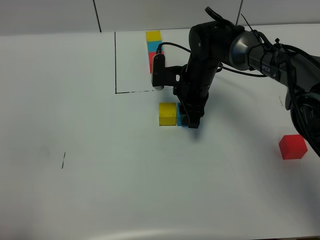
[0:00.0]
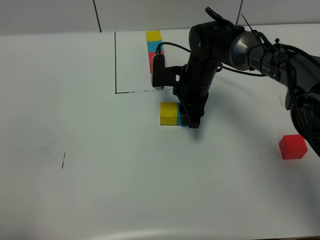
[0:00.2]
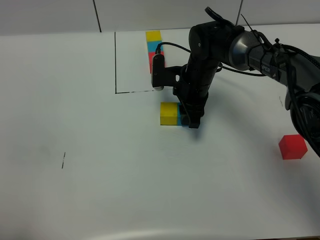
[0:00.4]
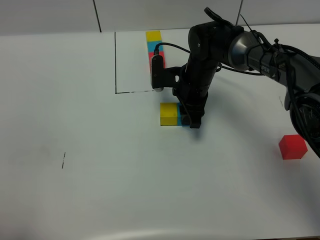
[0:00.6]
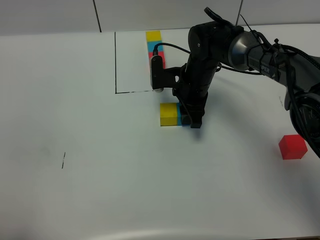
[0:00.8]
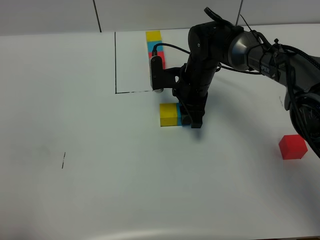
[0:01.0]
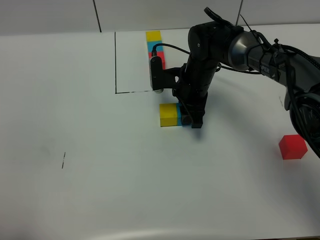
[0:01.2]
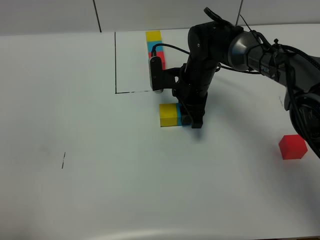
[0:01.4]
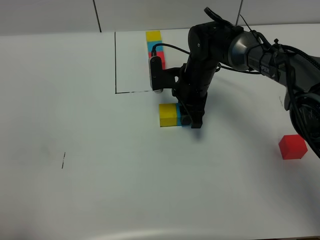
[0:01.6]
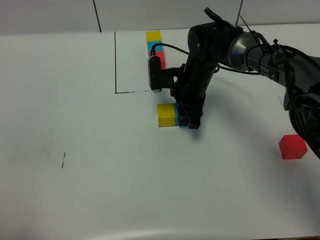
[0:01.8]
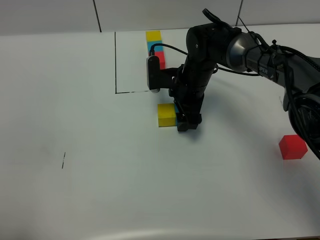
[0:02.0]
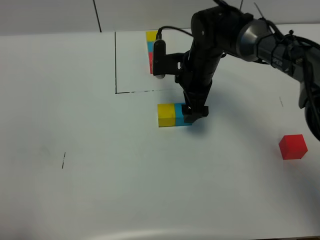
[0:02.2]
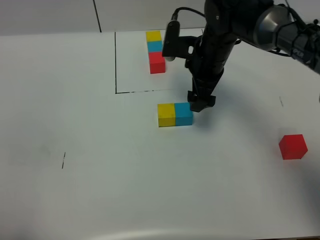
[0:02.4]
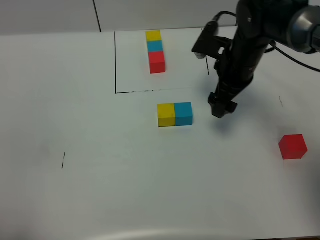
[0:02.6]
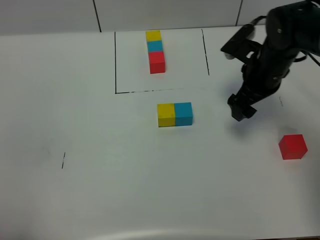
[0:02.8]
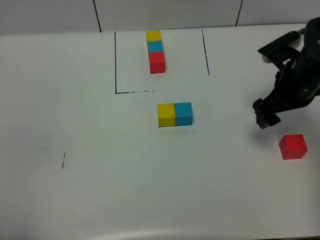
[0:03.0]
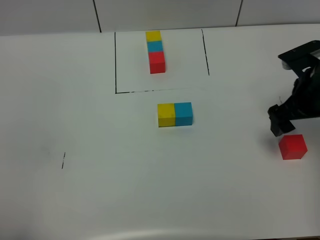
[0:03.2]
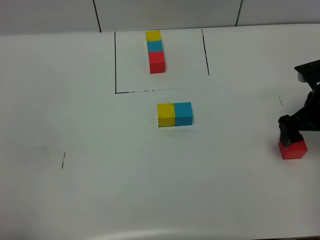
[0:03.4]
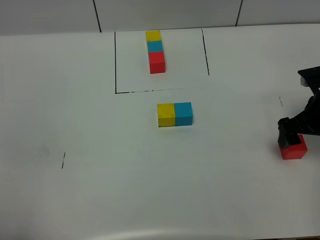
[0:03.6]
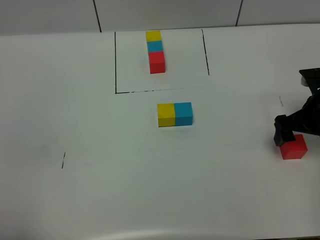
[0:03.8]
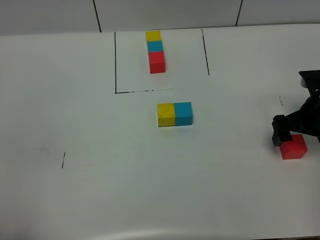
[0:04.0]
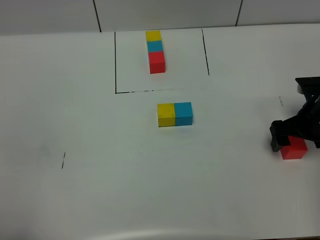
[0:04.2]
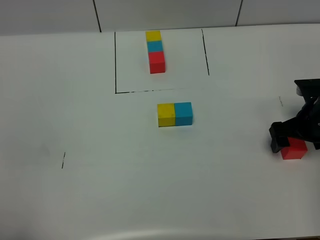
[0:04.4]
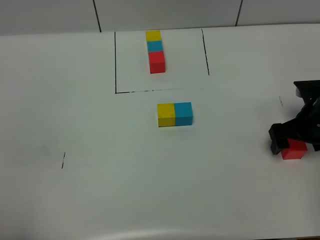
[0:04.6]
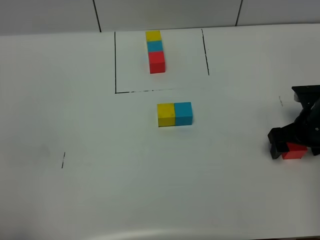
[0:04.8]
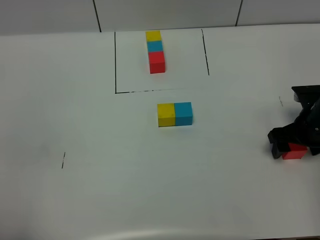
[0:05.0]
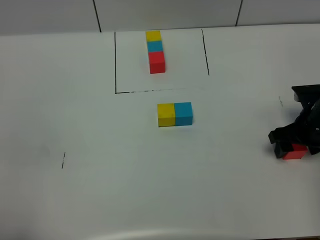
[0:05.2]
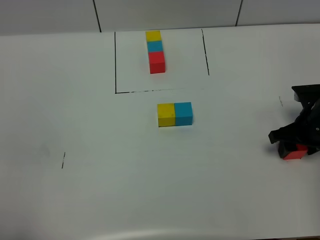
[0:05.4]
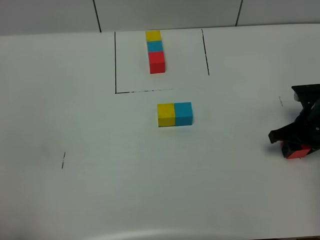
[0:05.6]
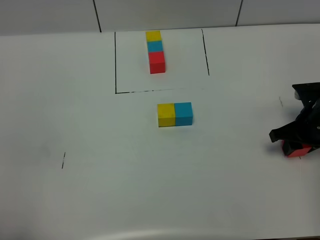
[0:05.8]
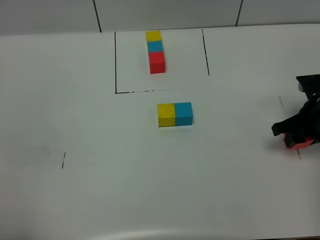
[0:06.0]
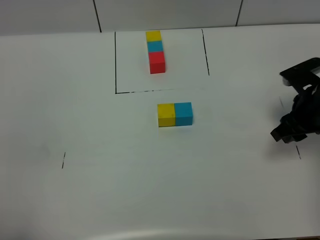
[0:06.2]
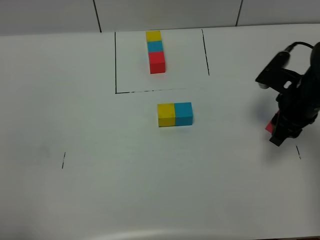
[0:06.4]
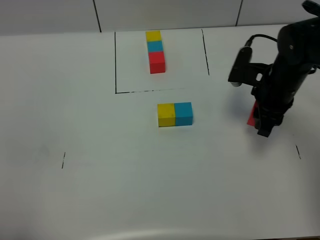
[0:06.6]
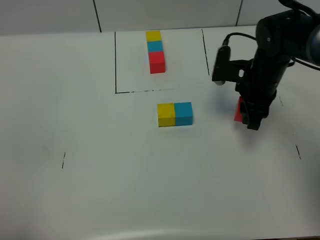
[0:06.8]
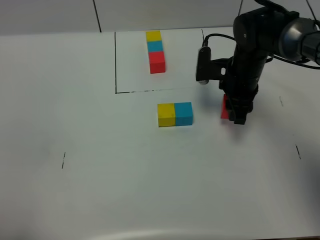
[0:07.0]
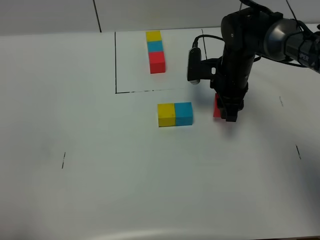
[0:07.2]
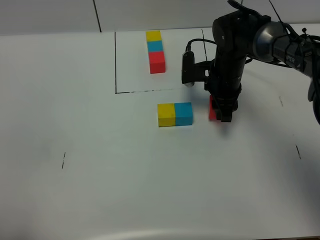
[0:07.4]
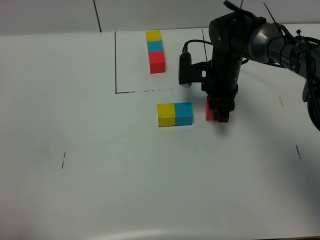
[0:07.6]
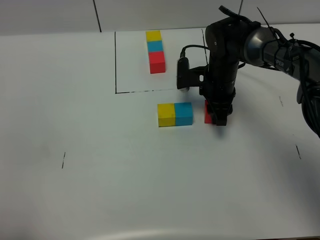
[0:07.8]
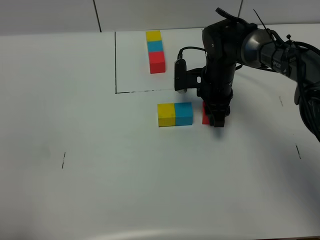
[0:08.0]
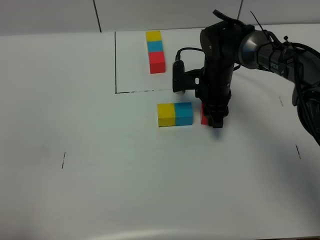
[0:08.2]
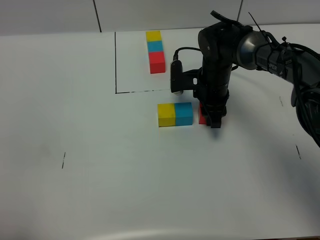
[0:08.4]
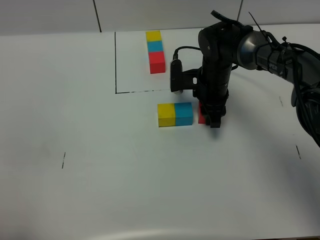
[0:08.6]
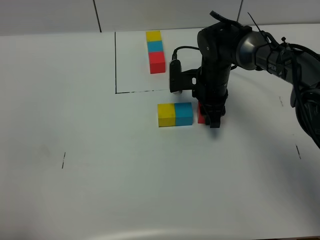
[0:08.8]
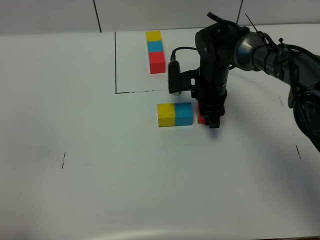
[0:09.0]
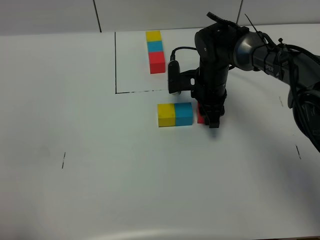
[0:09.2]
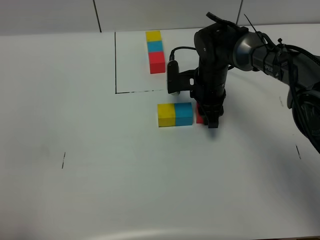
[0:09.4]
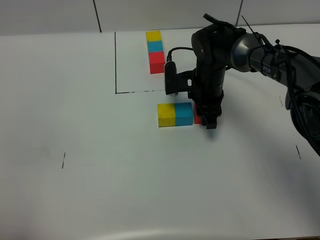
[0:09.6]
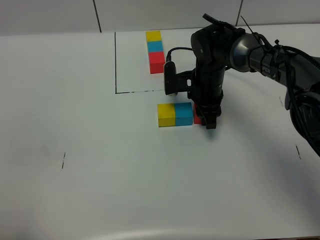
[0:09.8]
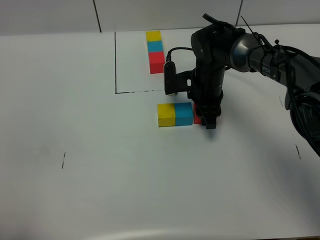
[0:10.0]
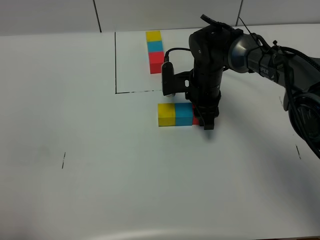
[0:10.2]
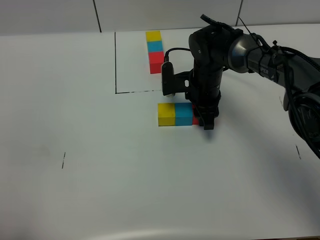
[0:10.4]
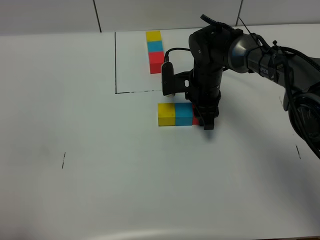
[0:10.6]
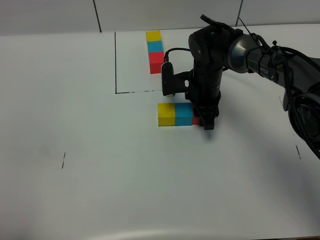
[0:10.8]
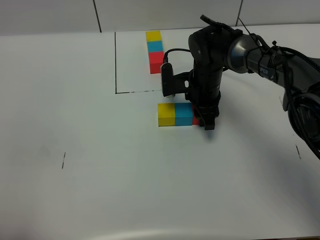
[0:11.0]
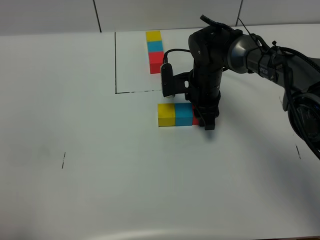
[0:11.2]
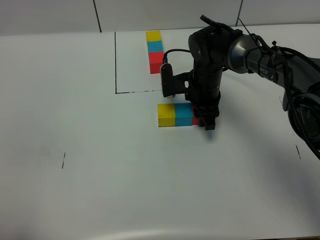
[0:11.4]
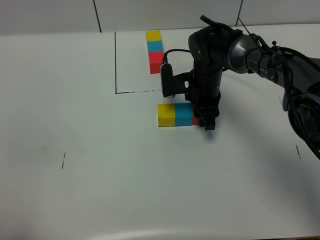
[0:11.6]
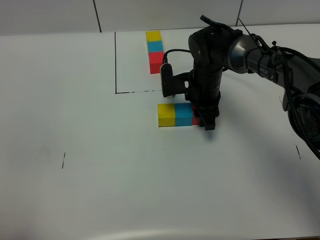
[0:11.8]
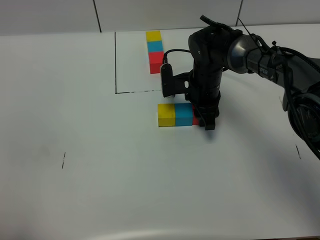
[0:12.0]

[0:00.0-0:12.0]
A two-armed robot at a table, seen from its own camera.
Task of the whole recording: According to the building block template in front, assemble the scattered blocks together.
0:00.0 to 0:01.6: The grippers stay close to where they were, moving slightly.
0:01.6 to 0:03.0: The right gripper heads to the right, backward and upward, covering some 20 cm, and opens.
0:03.0 to 0:04.4: The right gripper travels downward by some 5 cm.
0:04.4 to 0:06.0: The right gripper closes up.
0:06.0 to 0:07.6: The right gripper heads to the left and forward, covering roughly 20 cm.
0:07.6 to 0:09.0: The grippers make only small movements.
0:09.0 to 0:12.0: The two grippers keep their place.

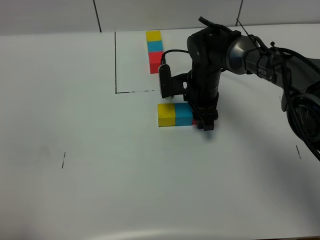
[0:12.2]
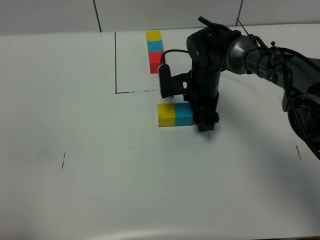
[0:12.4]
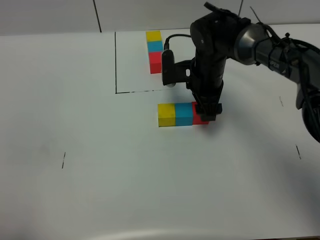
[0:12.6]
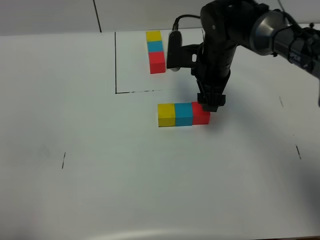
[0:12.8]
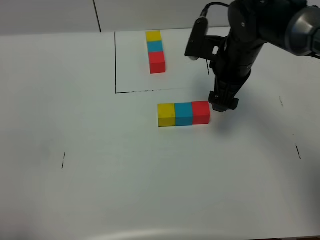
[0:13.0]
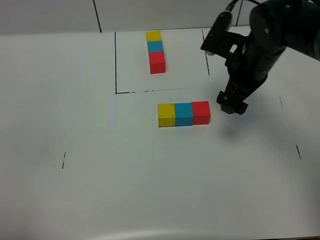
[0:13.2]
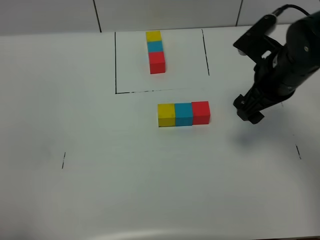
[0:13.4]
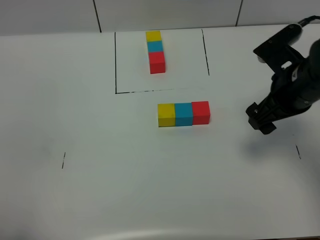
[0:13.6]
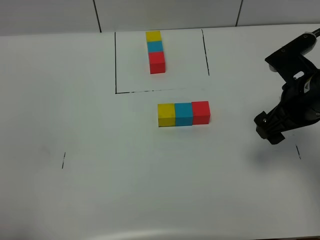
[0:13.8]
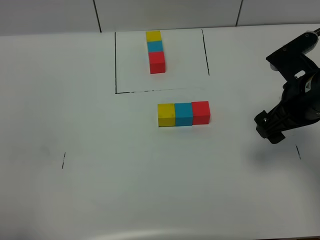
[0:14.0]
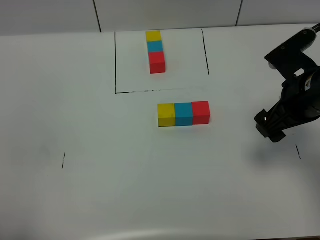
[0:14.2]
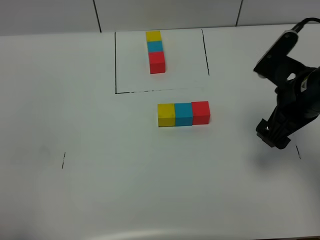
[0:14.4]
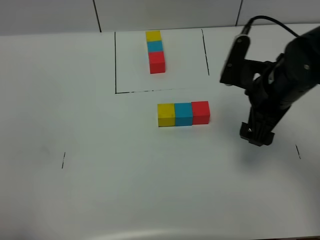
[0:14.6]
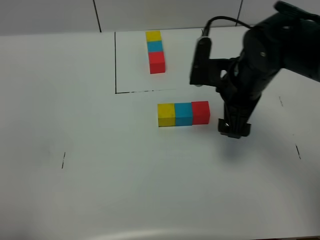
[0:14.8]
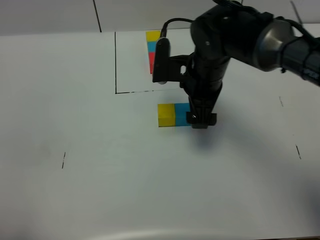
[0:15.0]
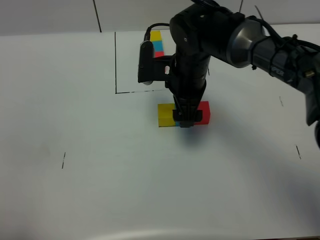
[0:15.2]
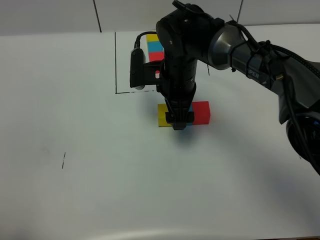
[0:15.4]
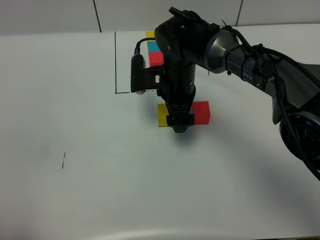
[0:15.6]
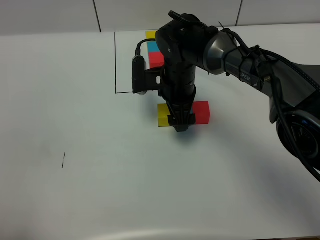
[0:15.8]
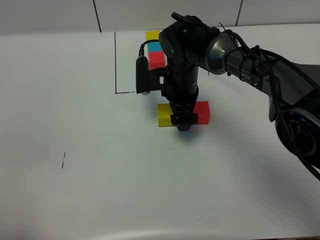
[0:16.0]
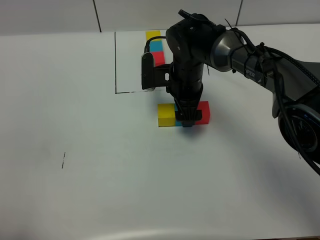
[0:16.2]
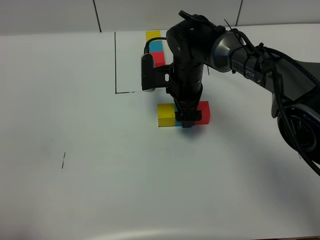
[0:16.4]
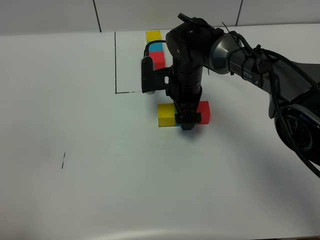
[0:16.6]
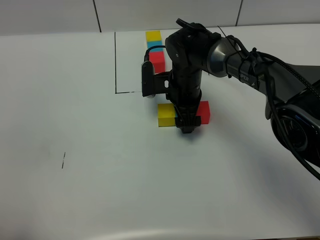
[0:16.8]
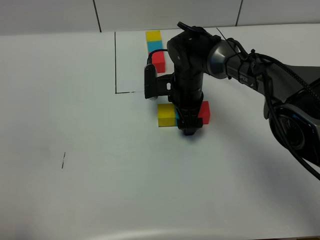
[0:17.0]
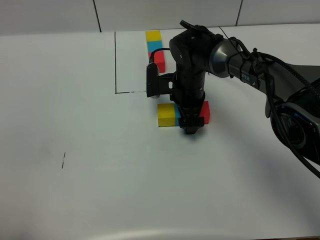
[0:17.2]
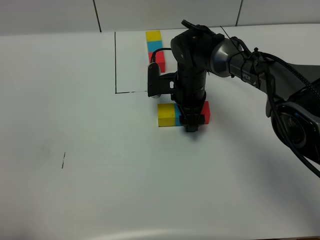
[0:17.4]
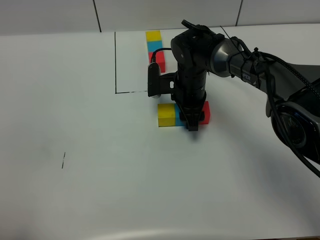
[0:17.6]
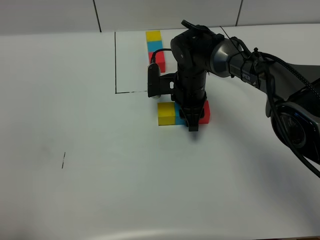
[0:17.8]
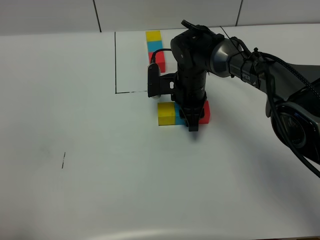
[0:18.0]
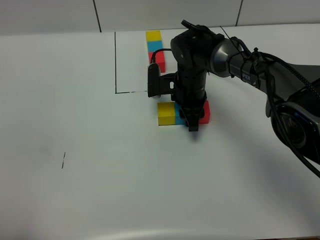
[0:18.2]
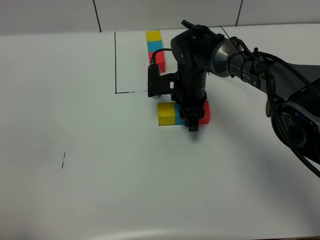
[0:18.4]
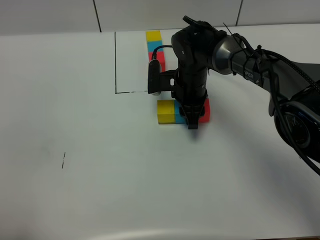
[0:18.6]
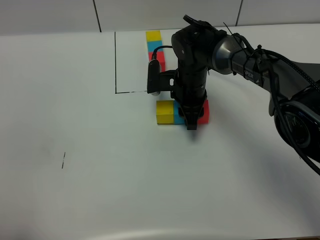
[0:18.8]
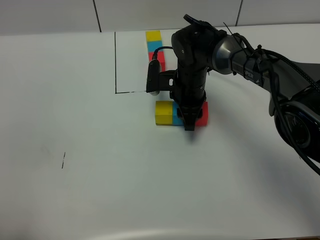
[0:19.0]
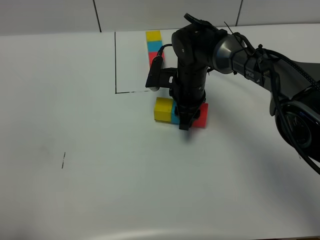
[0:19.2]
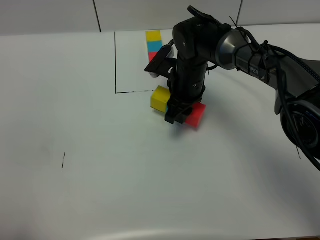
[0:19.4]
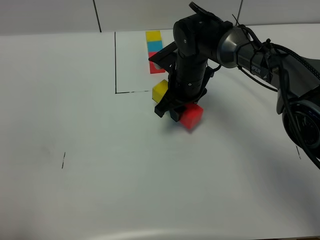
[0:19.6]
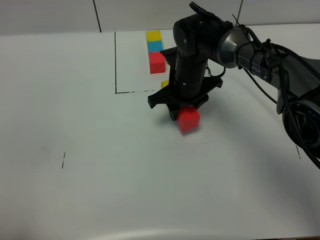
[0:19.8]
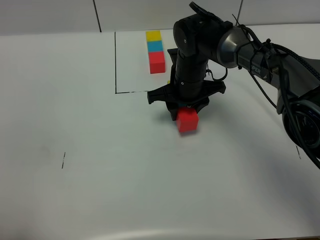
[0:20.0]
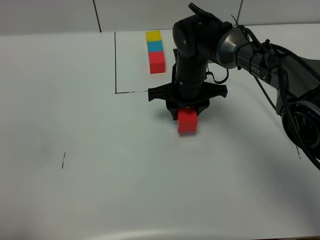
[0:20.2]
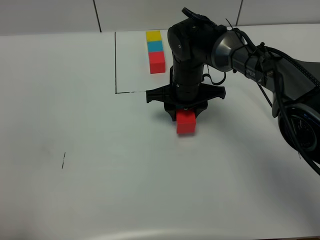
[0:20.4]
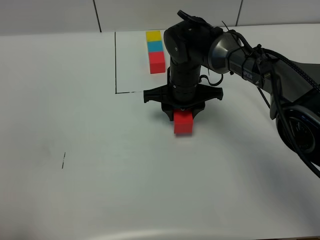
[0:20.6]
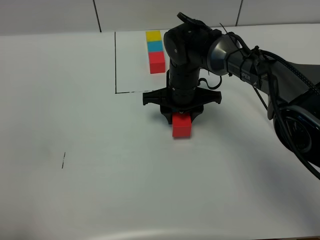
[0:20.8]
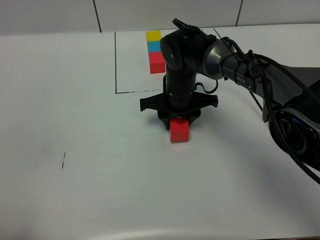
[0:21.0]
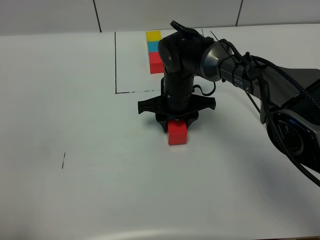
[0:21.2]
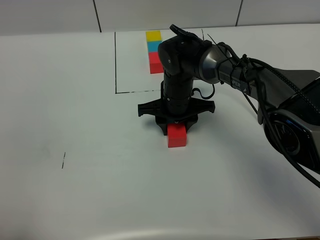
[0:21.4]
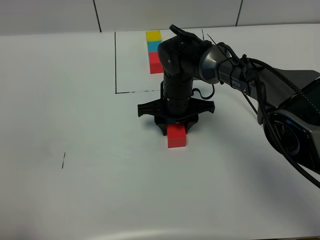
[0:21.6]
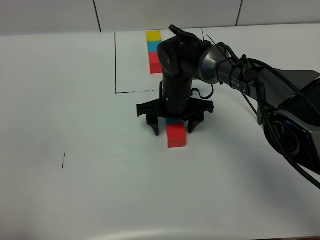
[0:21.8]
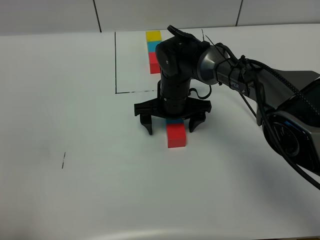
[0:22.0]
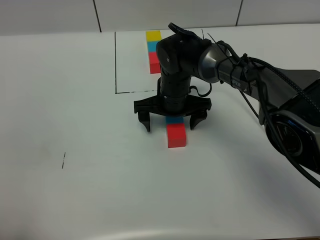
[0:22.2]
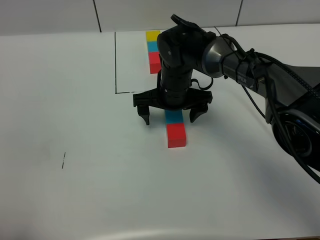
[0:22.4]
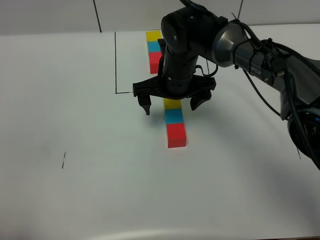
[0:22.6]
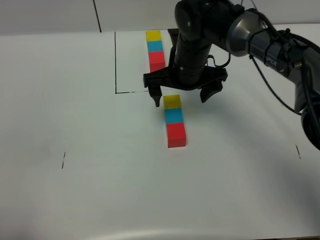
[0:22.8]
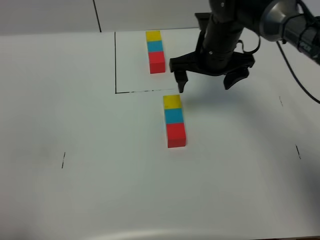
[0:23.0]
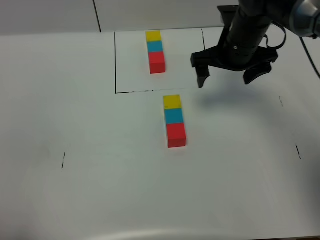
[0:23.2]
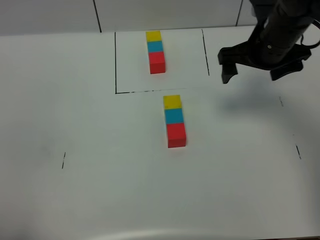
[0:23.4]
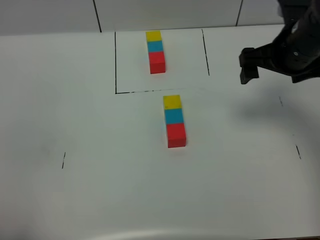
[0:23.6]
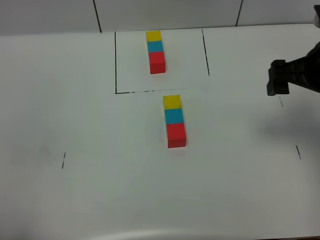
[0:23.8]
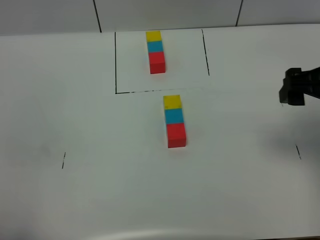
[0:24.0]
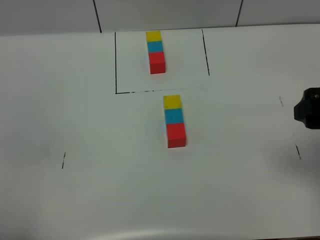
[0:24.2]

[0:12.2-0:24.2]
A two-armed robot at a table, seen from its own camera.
Task of the whole recording: According to the building block template in front, assemble the scattered blocks together.
Step, 0:12.6 to 0:21.6: move the build block to the center of the table.
0:12.2 to 0:13.8: The right gripper travels backward, to the right and upward by some 25 cm, and opens up.
0:13.8 to 0:15.2: The right gripper moves to the left and forward, roughly 20 cm.
0:15.2 to 0:16.6: The right gripper travels downward by about 5 cm.
0:16.6 to 0:18.2: The right gripper closes up.
0:19.8 to 0:21.2: There are only small adjustments of the grippers.
0:21.2 to 0:22.6: The right gripper is displaced upward by about 5 cm, and opens its fingers.
0:22.6 to 0:24.2: The right gripper shifts about 35 cm to the right, backward and upward.
